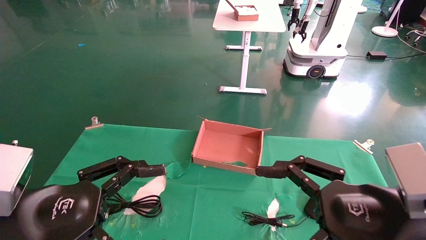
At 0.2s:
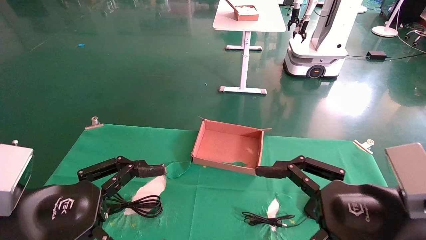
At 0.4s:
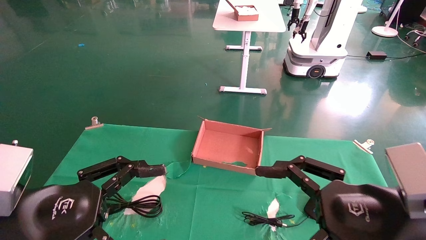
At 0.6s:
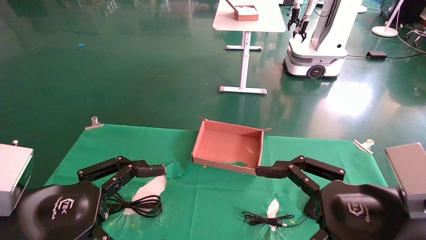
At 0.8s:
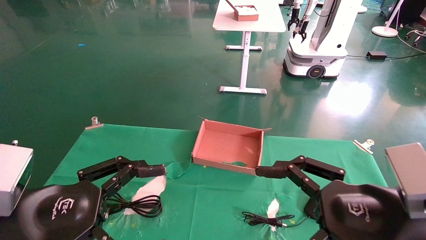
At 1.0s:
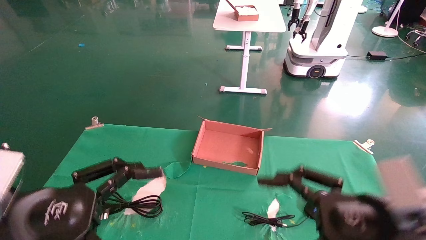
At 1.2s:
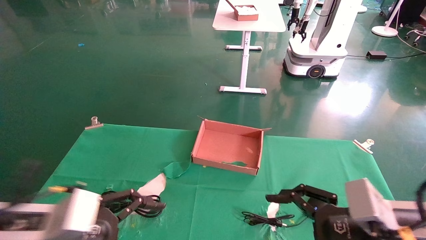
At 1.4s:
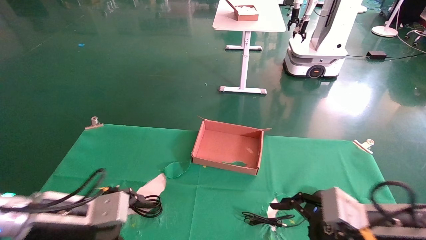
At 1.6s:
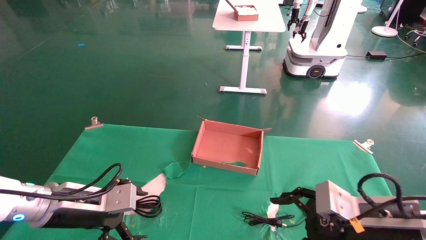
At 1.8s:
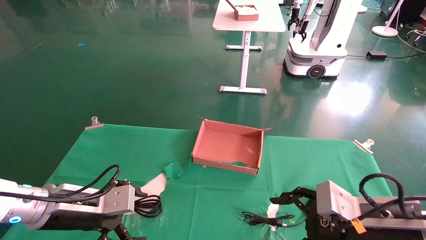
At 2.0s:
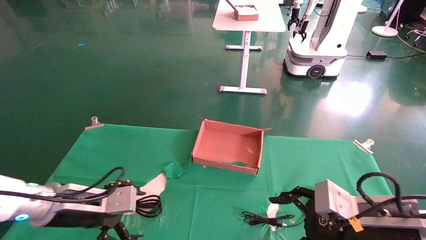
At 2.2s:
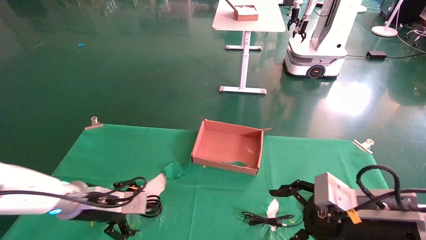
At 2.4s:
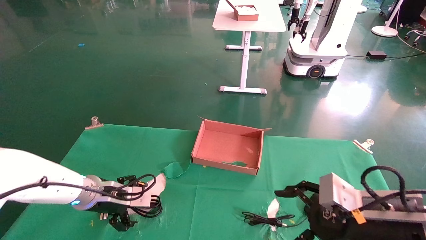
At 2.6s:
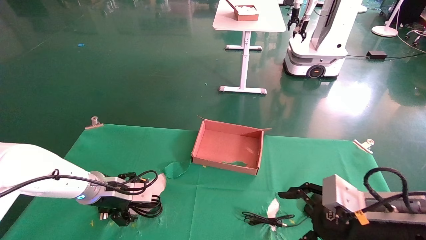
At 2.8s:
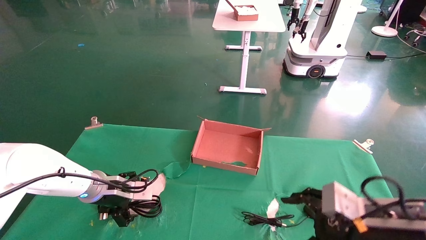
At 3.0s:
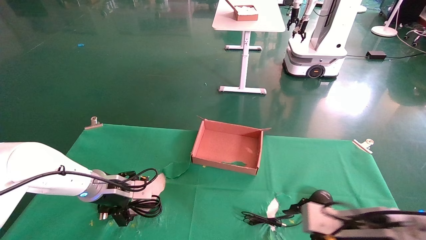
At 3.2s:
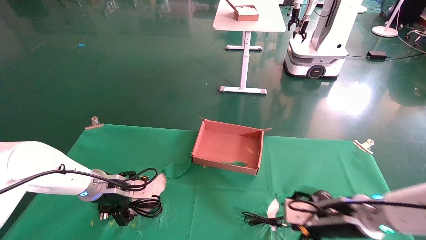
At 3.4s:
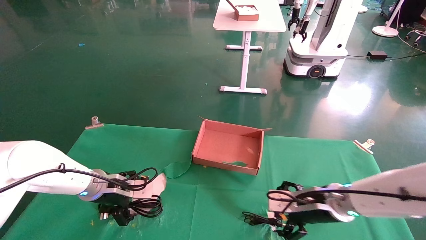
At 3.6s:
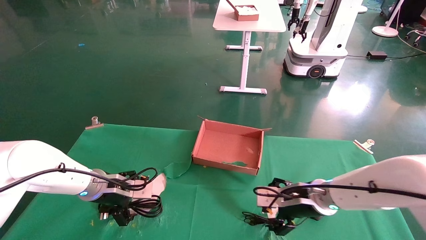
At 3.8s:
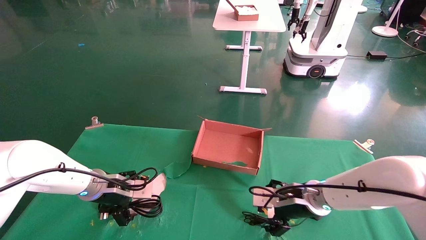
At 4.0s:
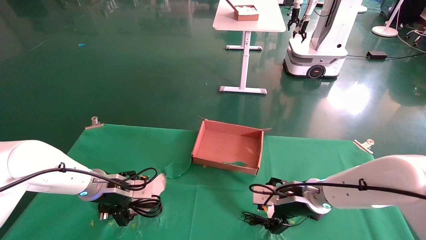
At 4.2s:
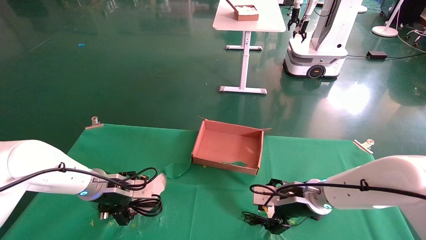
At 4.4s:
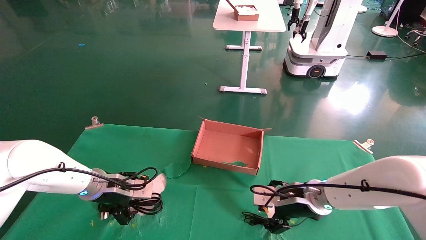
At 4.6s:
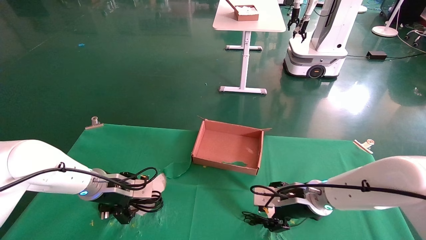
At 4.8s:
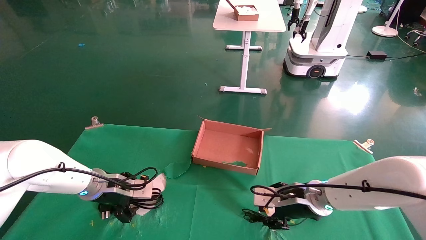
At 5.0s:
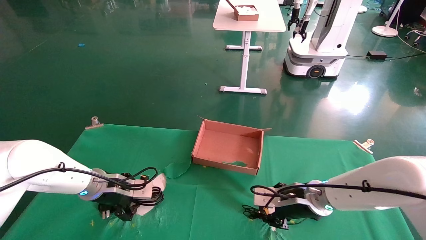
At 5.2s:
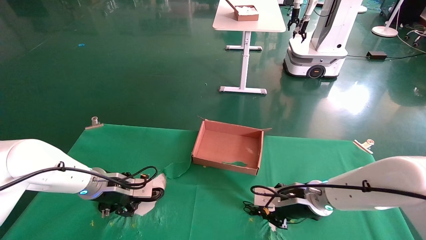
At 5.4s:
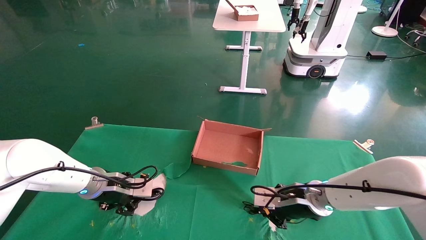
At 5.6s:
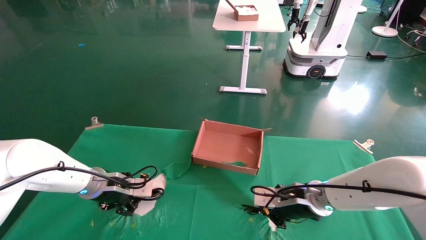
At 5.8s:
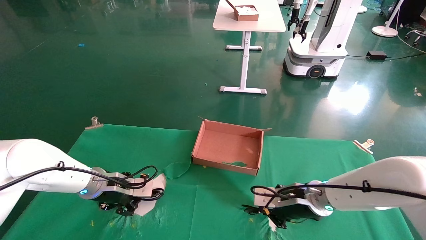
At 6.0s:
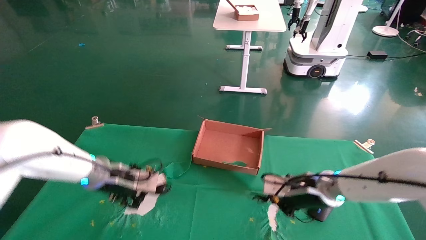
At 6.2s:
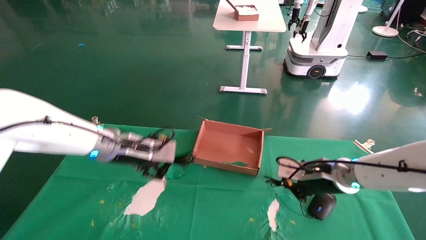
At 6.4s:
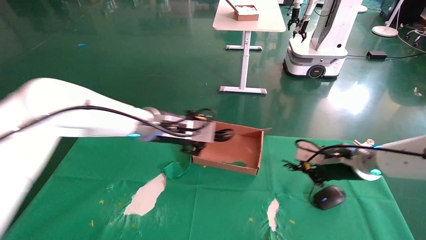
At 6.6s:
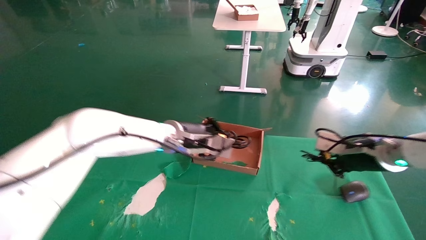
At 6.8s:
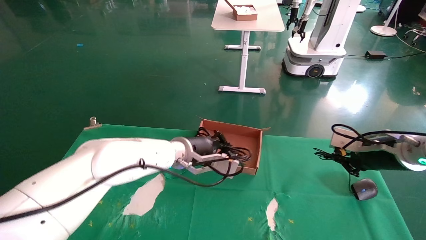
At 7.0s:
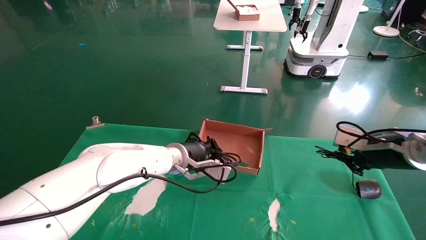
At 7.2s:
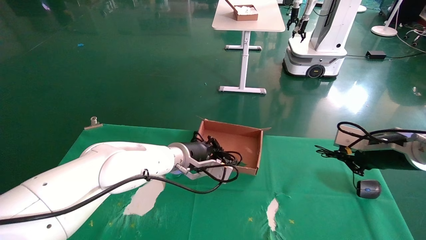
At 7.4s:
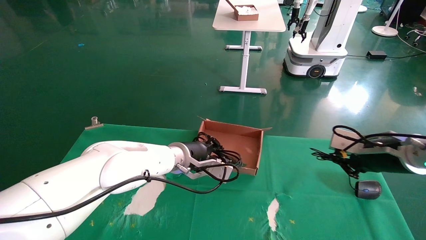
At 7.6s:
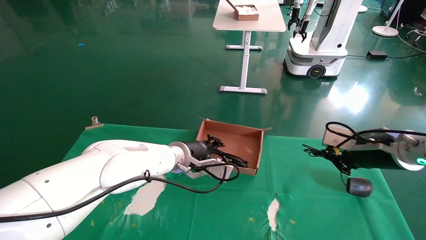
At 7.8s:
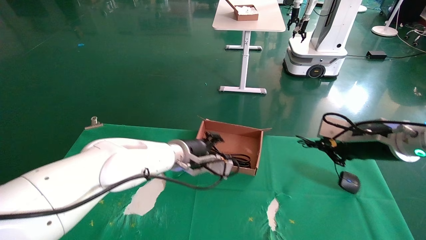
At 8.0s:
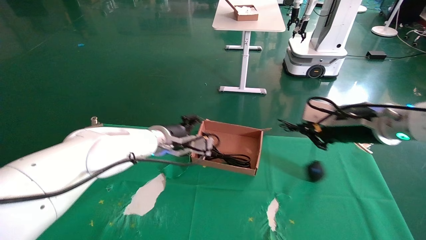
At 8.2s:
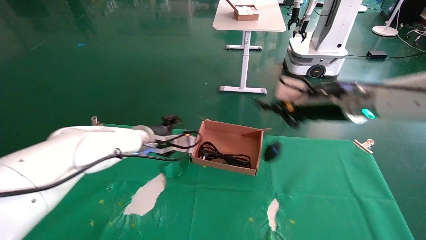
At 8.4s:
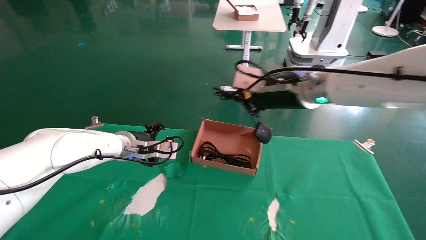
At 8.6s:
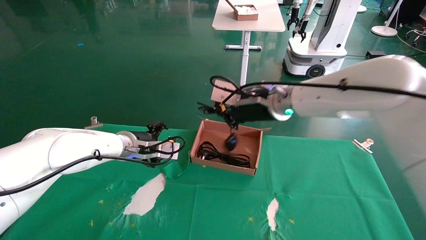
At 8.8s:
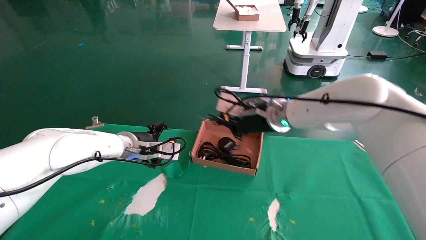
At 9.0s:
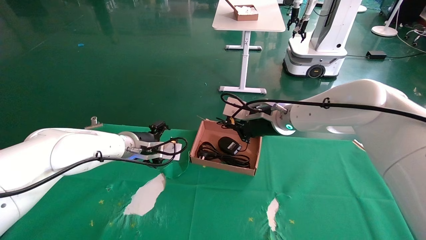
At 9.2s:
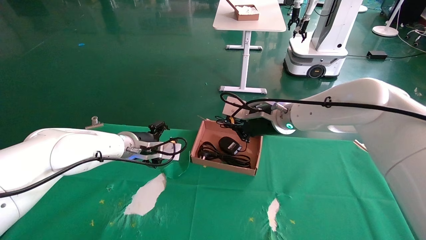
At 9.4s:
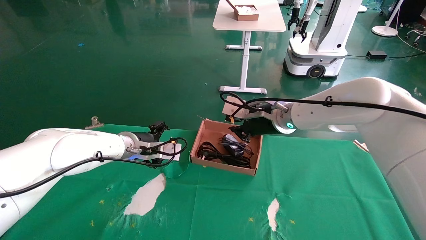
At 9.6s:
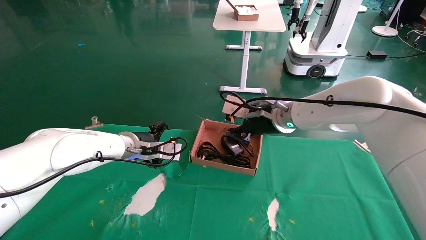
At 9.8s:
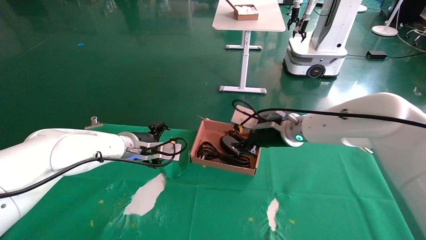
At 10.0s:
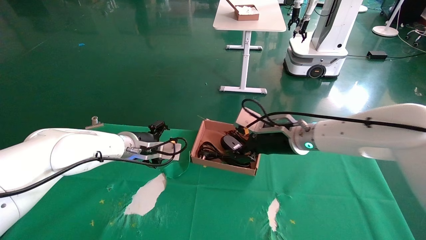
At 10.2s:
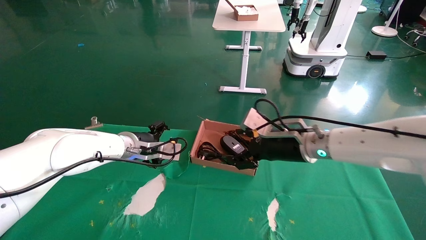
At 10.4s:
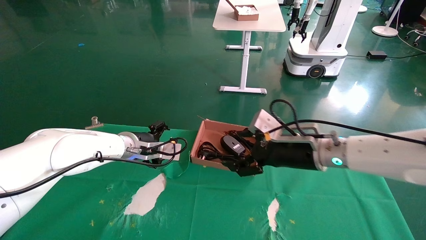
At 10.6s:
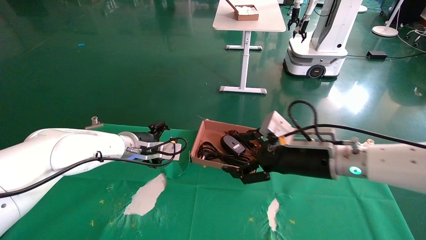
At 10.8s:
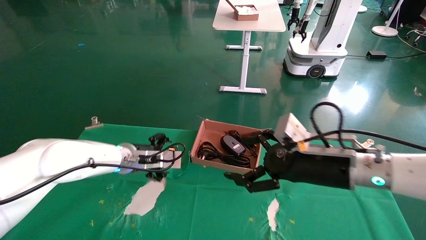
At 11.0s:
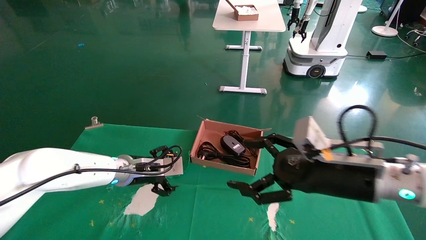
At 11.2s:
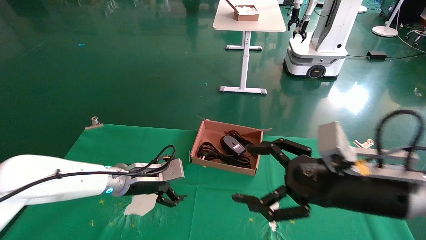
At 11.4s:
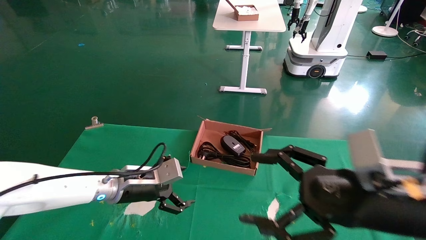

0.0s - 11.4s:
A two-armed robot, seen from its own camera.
Step, 1.2s - 6.2s: Grab and lift both the mouse and power cord from the accessory packaging area at the same time.
Step, 6.4s - 11.0s: Place the mouse and power cord into the box.
0.0s - 1.4s: The left gripper goes about 10 cm forward and downward, while the right gripper travels downward and forward by roughly 10 cm.
1.4s - 2.8s: The left gripper goes approximately 15 cm forward.
2.8s - 4.2s: The right gripper goes some 15 cm forward and to the left.
4.2s - 5.6s: The right gripper closes up; the left gripper closes.
5.6s - 7.2s: The right gripper is displaced to the right and upward by some 20 cm. Meanwhile the left gripper heads to the right, covering some 20 cm.
7.2s - 8.6s: The left gripper moves to the left, some 10 cm, and opens its fingers. Meanwhile the right gripper travels to the left by about 25 cm.
8.6s - 10.0s: The right gripper is displaced downward by roughly 5 cm, and opens.
10.0s - 11.4s: The left gripper travels backward and downward by some 10 cm; the right gripper goes about 25 cm backward and to the right, and opens up.

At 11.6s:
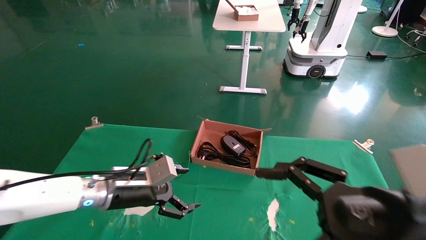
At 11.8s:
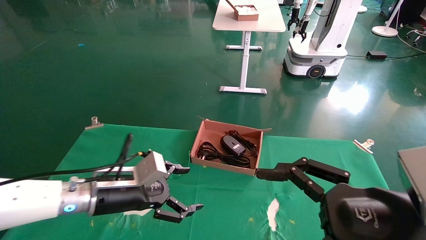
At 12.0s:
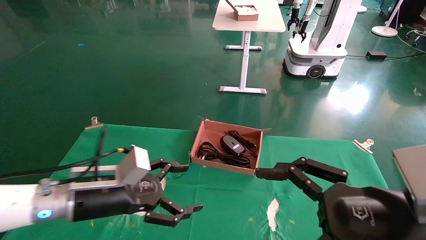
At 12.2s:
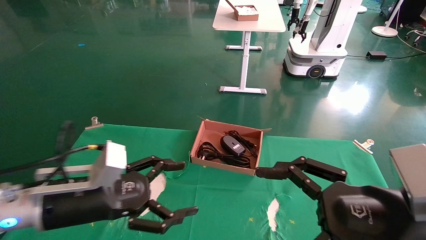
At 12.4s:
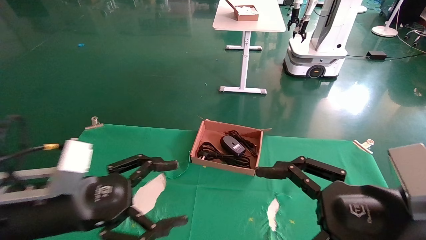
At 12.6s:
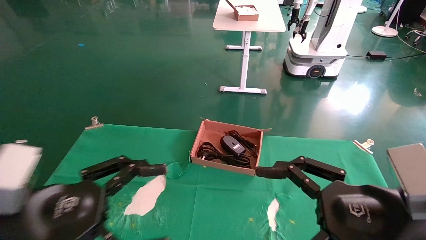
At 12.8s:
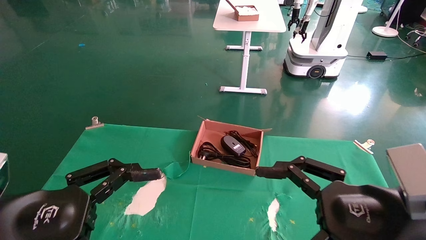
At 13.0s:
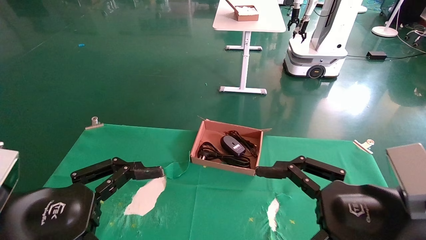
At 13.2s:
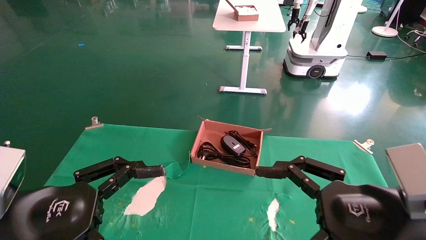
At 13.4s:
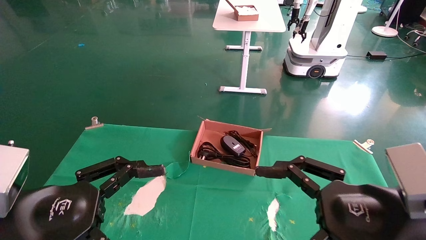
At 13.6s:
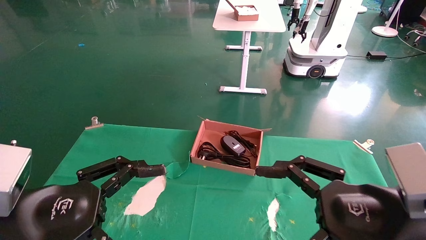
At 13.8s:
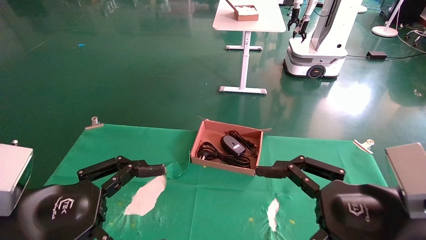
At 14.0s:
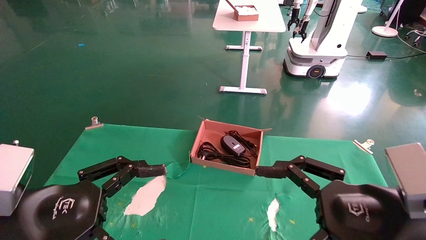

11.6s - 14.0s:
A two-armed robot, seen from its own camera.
11.6s - 12.8s: The left gripper heads backward, covering roughly 20 cm.
12.8s - 14.0s: The two grippers keep their place.

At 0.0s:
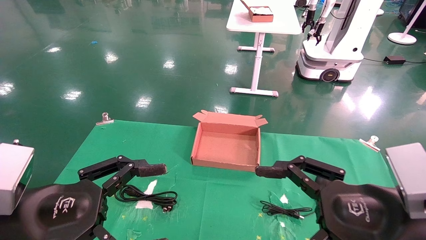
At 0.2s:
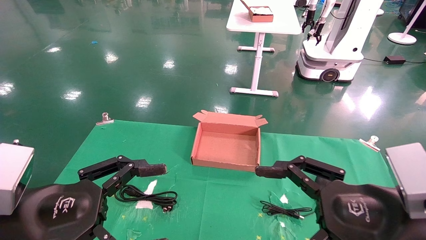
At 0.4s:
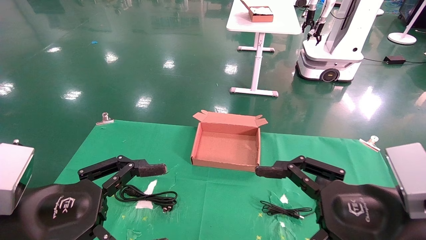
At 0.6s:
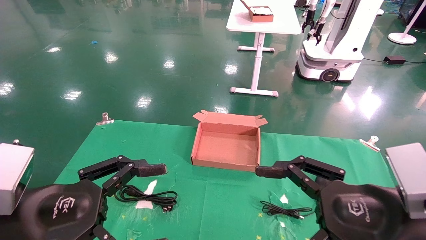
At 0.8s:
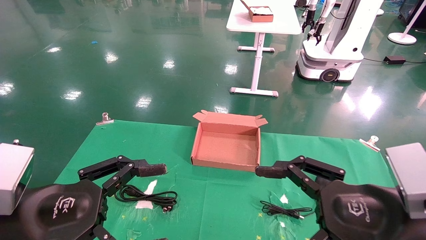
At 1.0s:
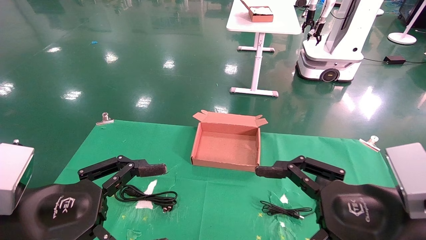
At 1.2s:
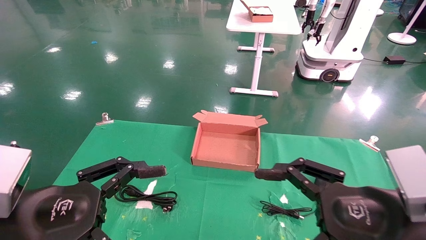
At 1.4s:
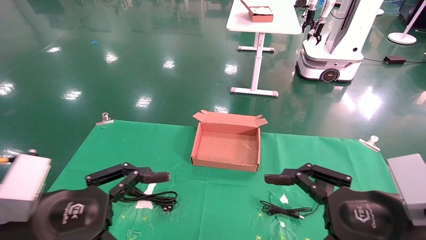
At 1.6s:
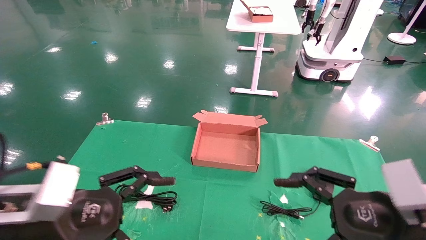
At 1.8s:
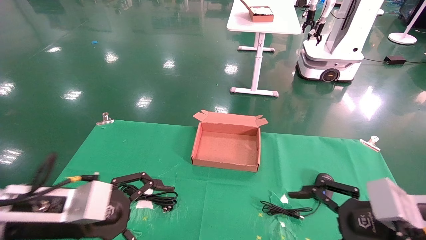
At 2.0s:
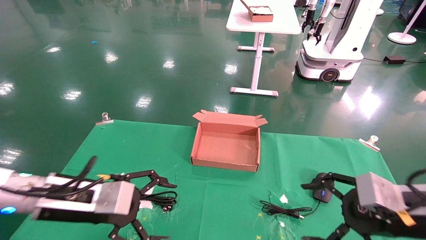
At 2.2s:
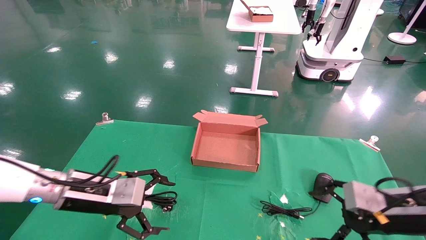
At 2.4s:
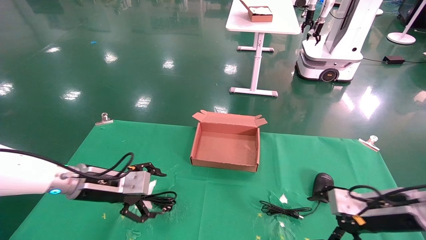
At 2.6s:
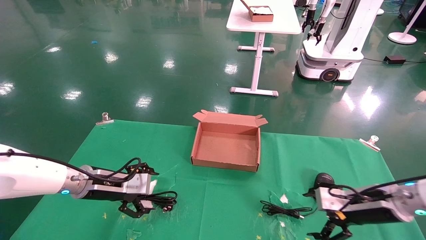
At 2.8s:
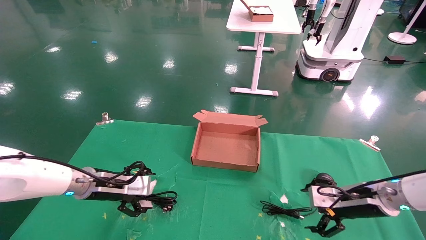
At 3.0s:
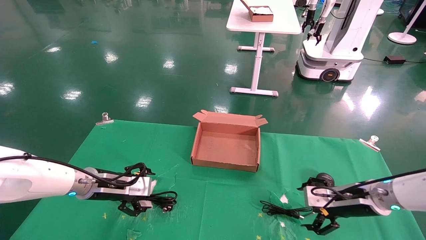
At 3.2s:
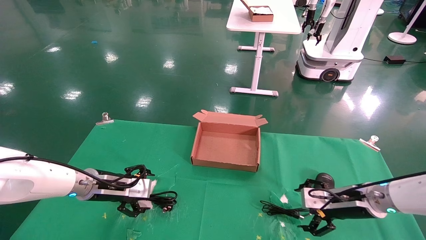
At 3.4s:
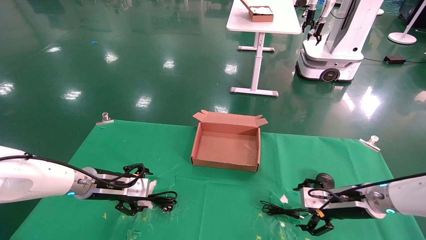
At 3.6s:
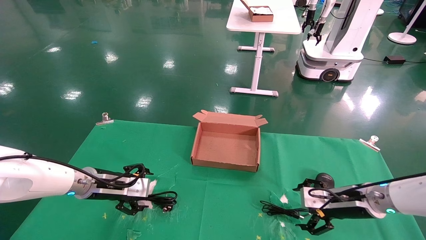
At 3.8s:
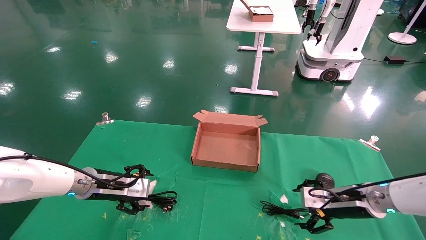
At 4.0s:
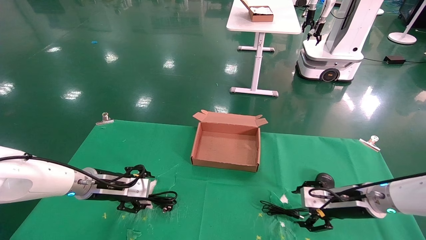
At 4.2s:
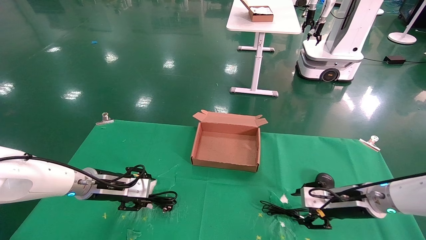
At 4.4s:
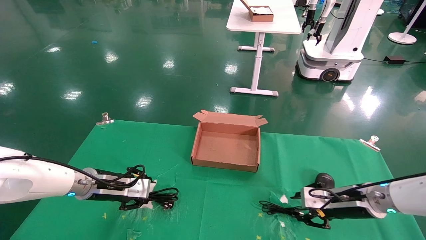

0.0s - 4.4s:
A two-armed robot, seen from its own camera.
0.0s - 1.4s: There are only small adjustments of the grippers.
1.4s - 3.0s: The left gripper is displaced forward by some 25 cm. Meanwhile the right gripper is displaced forward and downward by approximately 25 cm.
3.0s - 4.4s: The left gripper closes up, while the right gripper closes its fingers.
